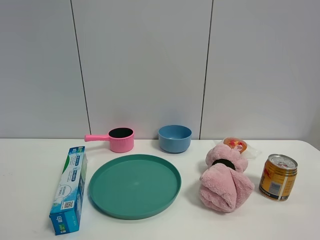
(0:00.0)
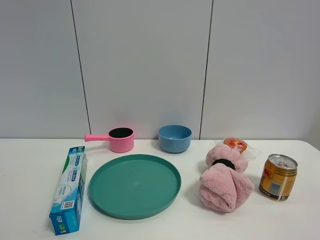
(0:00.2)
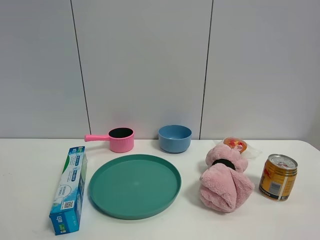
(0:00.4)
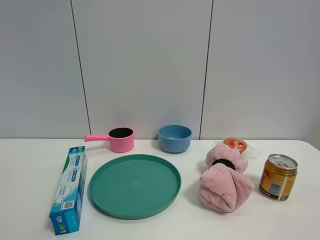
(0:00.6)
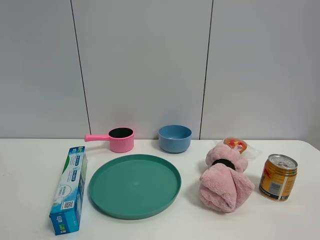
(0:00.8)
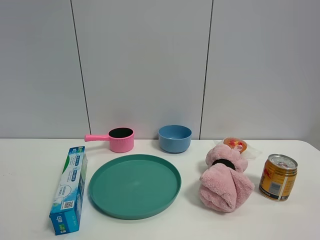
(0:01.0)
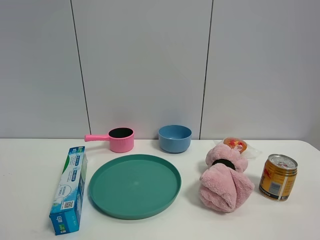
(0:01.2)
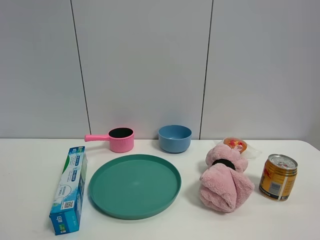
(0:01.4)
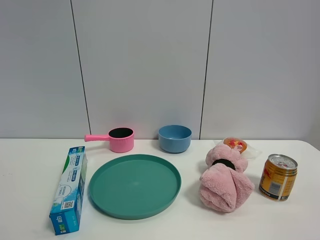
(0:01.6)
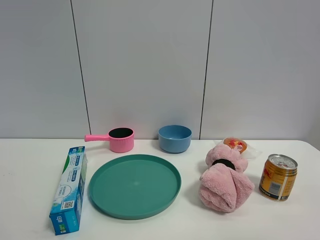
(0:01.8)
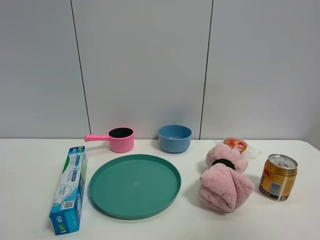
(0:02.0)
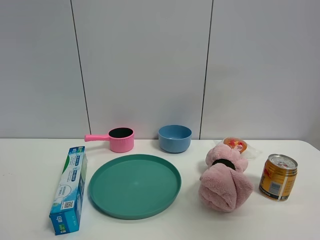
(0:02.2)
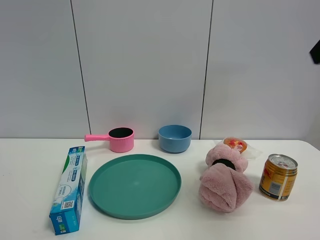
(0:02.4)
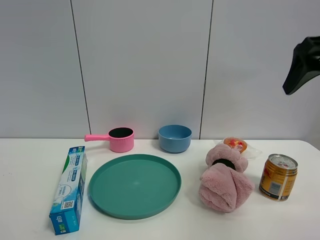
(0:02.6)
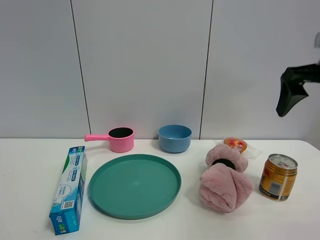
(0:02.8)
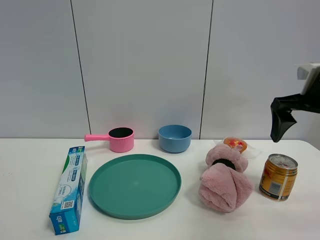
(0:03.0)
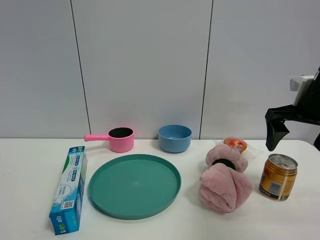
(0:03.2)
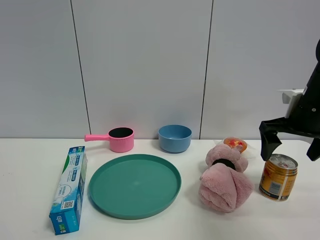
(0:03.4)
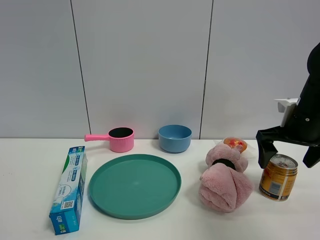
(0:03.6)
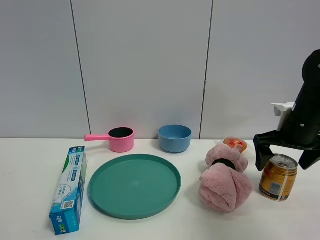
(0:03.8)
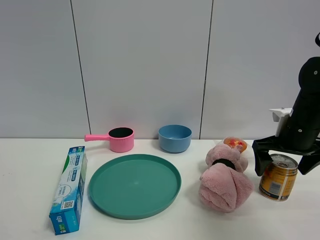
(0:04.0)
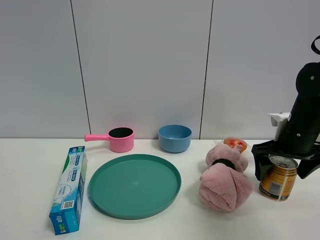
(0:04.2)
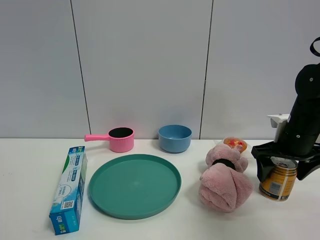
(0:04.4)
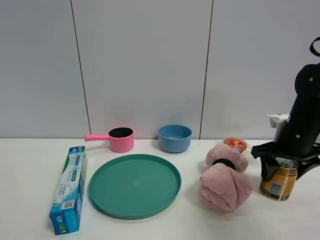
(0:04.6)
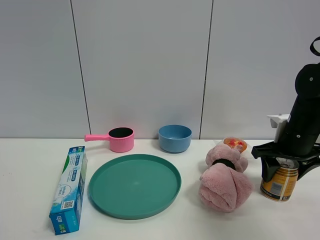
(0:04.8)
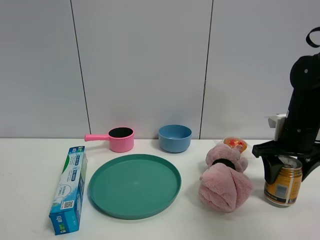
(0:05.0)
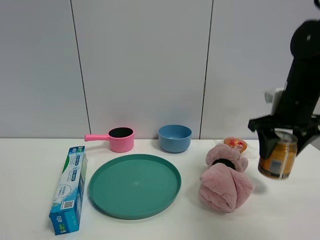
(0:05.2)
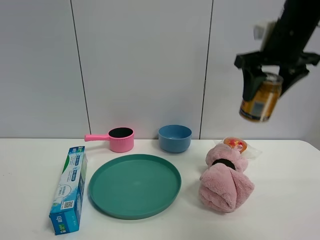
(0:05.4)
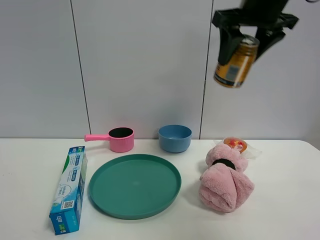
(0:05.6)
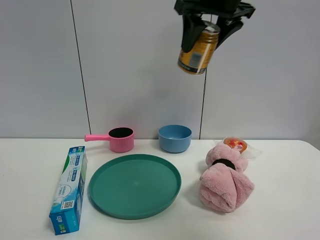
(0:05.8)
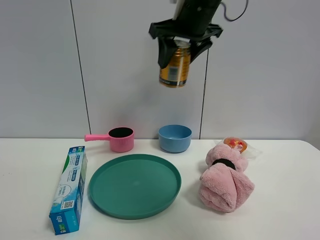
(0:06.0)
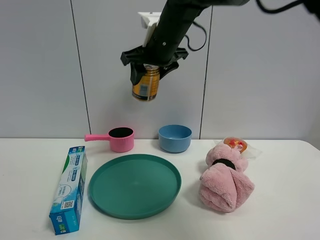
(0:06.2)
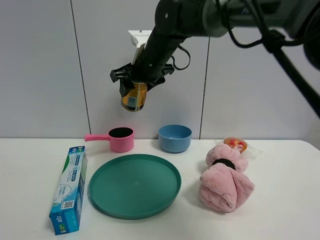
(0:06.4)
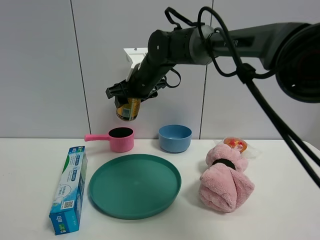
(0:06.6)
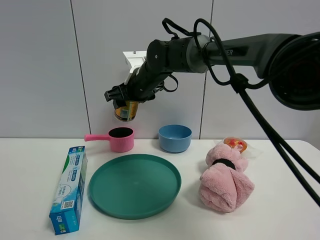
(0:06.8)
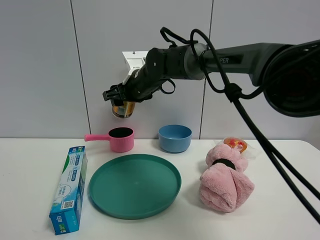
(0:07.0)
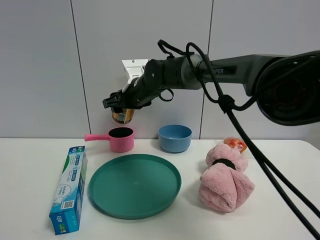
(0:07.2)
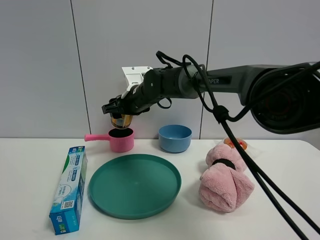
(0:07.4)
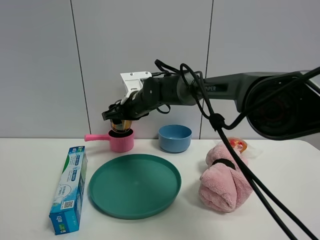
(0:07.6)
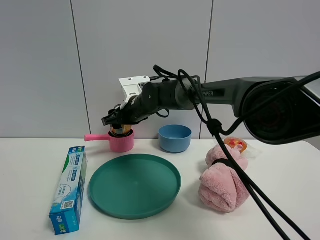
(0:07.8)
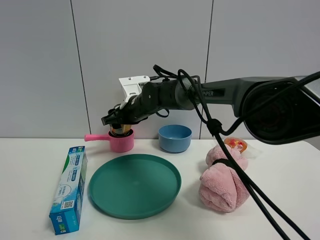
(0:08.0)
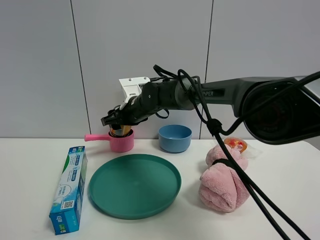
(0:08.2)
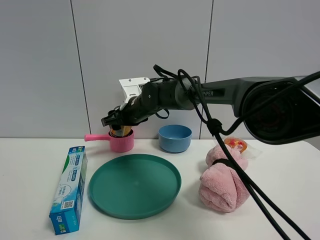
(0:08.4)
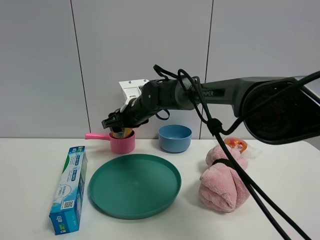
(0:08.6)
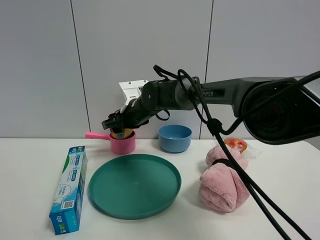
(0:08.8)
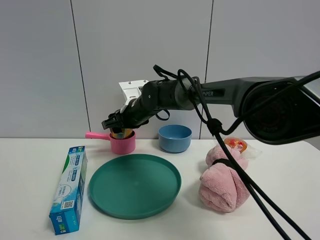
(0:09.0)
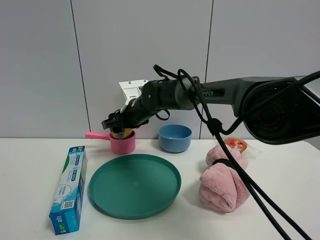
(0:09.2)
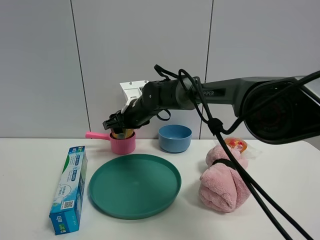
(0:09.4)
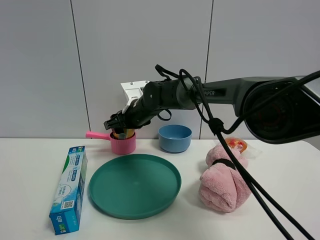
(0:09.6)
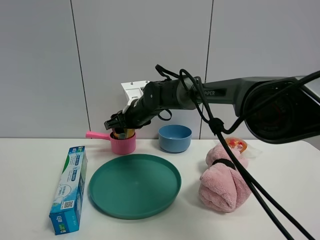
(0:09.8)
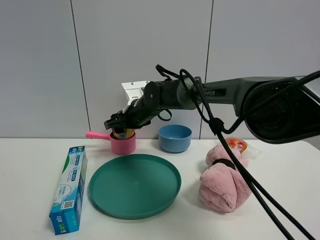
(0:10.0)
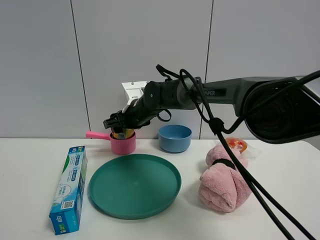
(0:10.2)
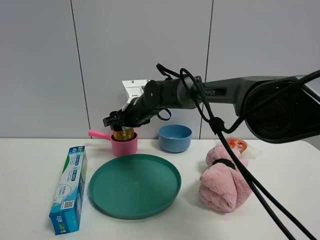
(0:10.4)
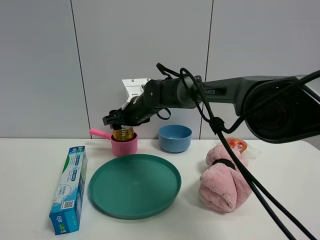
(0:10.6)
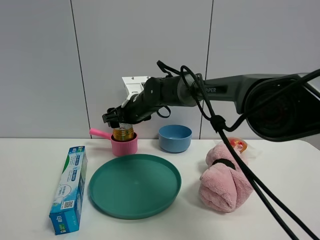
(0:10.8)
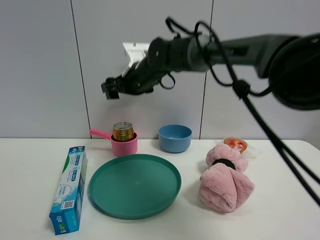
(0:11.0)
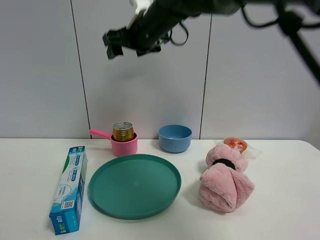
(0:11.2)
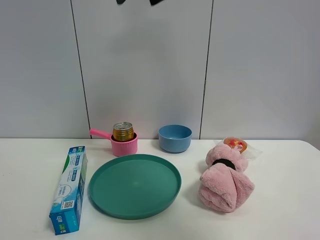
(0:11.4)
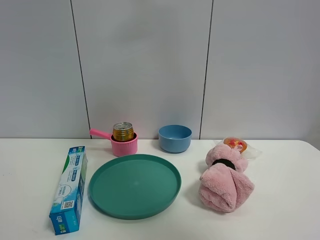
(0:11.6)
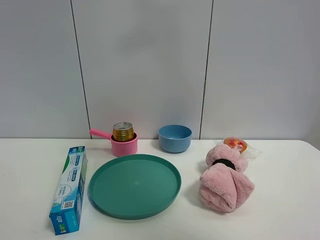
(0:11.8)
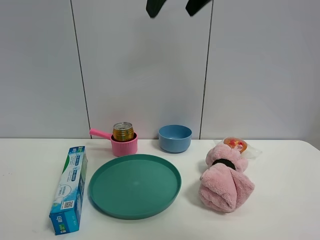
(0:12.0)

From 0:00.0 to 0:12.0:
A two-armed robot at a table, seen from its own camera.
Task of the whole recording: the gripper move the object.
Step, from 0:00.0 to 0:04.4: Grasp the red bull with the right gripper.
Step, from 0:04.6 to 0:10.4: Place the red bull into the pink pot with the right gripper.
From 0:01.6 to 0:03.0: The right gripper moves forward, roughly 35 cm.
From 0:03.0 to 0:04.4: The right gripper heads downward, covering approximately 10 cm, and closes its fingers.
From 0:04.4 to 0:06.0: The right gripper is displaced to the left and upward by some 30 cm, and closes its fingers.
From 0:06.0 to 0:07.6: The right gripper goes some 25 cm downward, to the left and forward.
From 0:07.6 to 0:09.0: The grippers stay close to where they were, moving slightly.
From 0:09.0 to 0:10.4: Neither gripper changes place.
From 0:10.4 to 0:12.0: The right gripper shifts about 35 cm upward and backward, and opens its fingers.

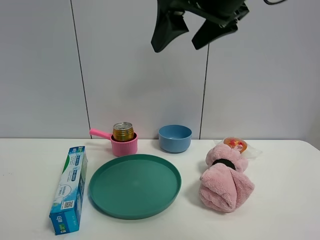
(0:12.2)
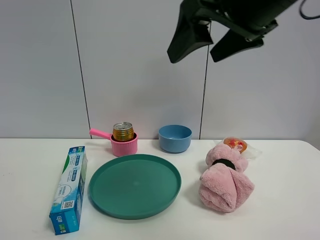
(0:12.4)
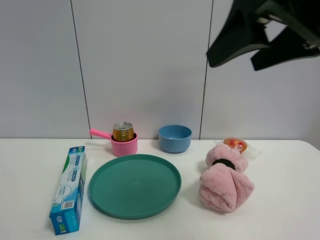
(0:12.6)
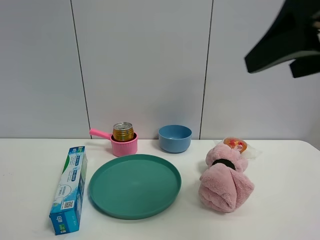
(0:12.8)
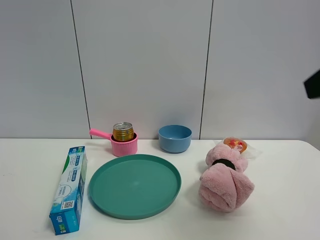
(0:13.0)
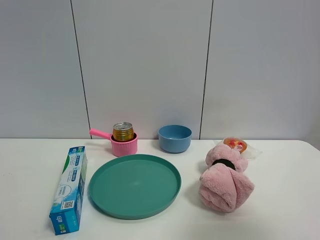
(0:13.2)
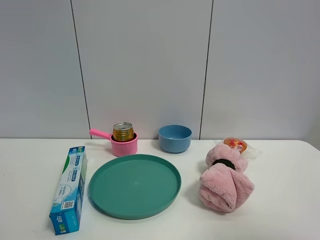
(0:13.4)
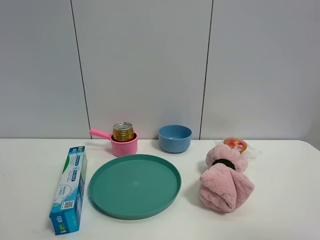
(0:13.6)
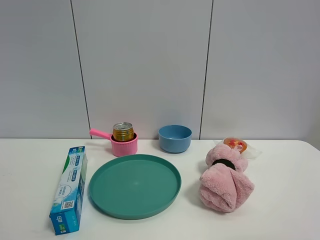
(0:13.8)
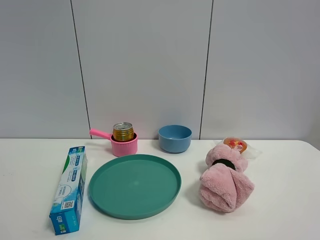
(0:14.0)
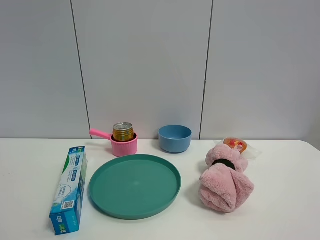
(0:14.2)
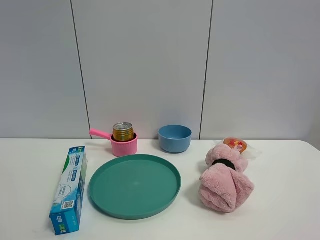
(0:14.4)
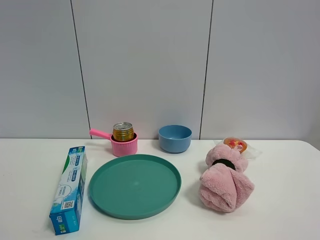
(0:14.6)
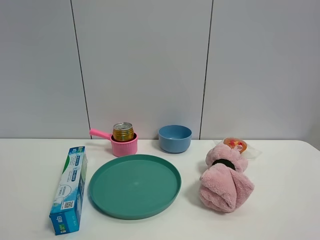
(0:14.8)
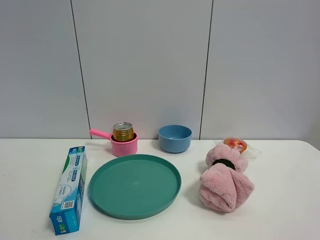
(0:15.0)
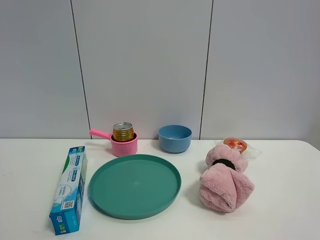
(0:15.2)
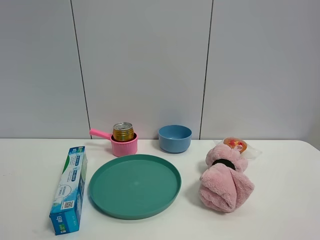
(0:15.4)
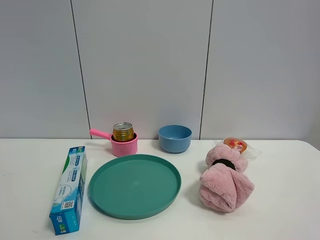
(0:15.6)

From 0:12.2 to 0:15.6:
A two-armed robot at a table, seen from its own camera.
Task of the whole recording: the gripper move the object.
From 0:12.2 to 0:13.8: The right gripper moves backward and to the right, approximately 30 cm.

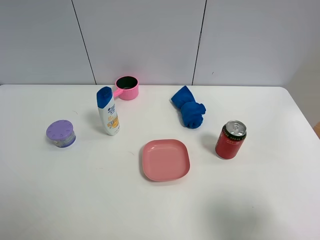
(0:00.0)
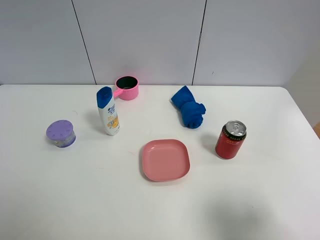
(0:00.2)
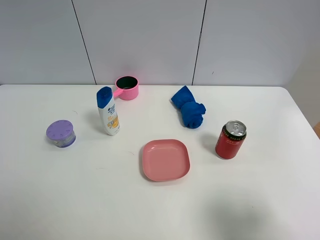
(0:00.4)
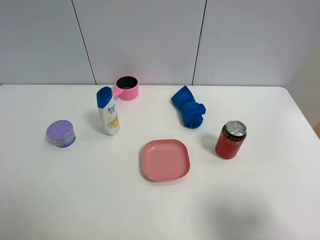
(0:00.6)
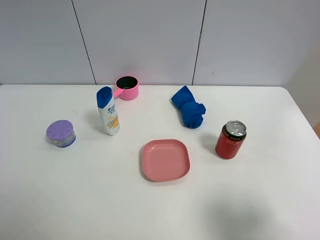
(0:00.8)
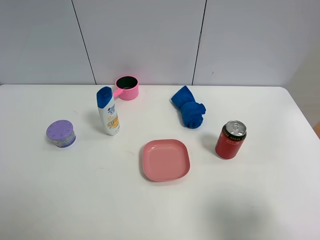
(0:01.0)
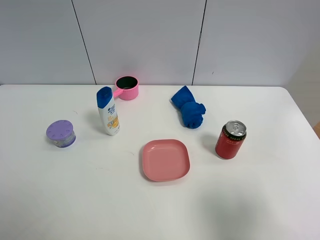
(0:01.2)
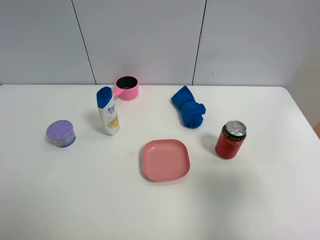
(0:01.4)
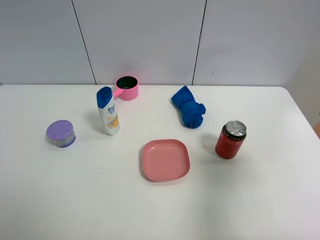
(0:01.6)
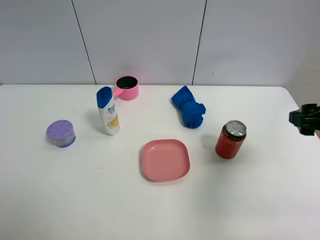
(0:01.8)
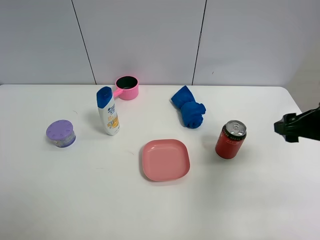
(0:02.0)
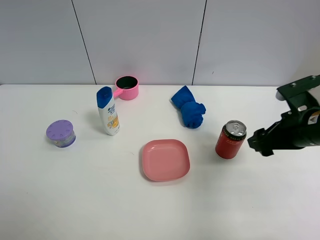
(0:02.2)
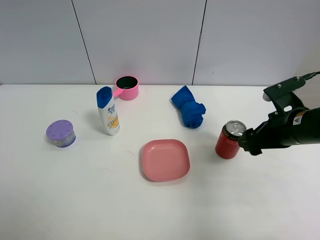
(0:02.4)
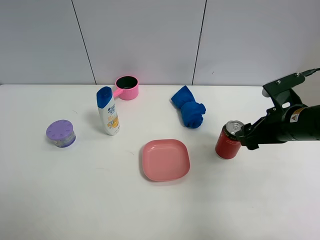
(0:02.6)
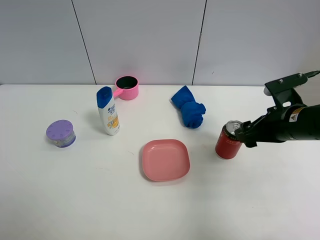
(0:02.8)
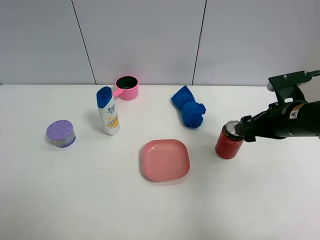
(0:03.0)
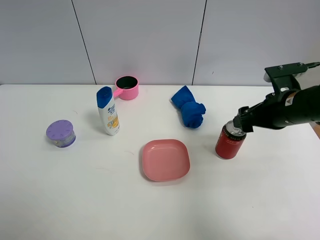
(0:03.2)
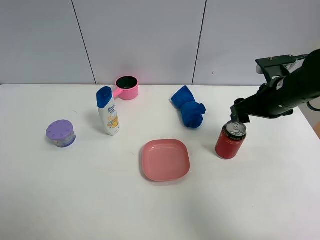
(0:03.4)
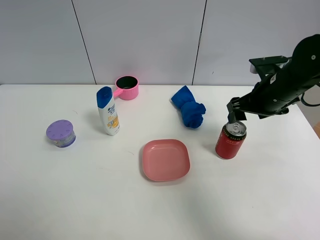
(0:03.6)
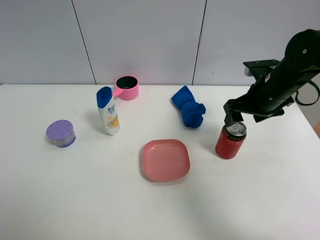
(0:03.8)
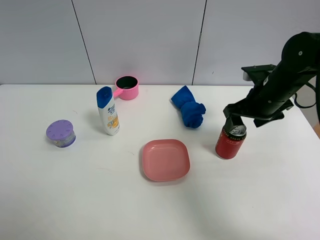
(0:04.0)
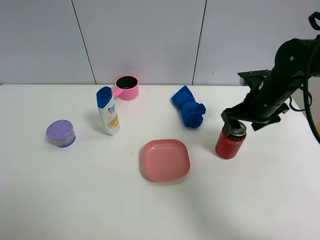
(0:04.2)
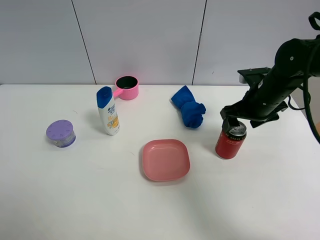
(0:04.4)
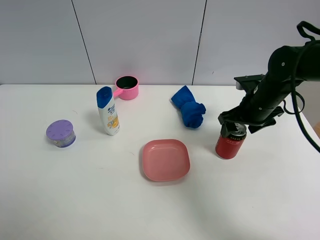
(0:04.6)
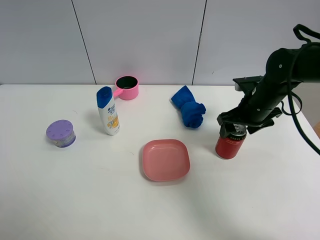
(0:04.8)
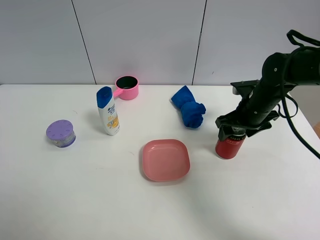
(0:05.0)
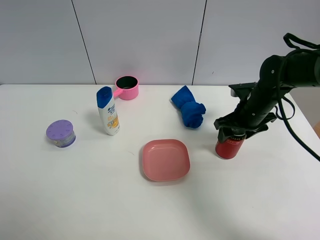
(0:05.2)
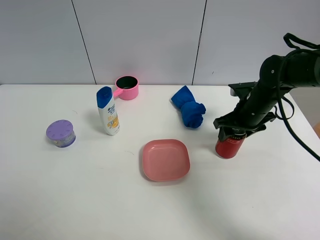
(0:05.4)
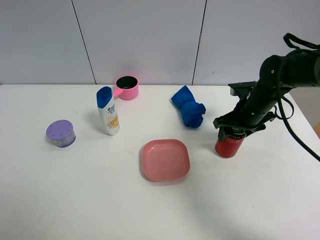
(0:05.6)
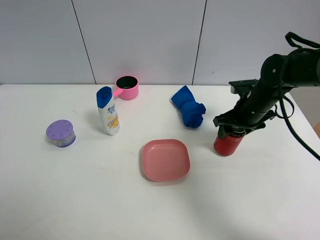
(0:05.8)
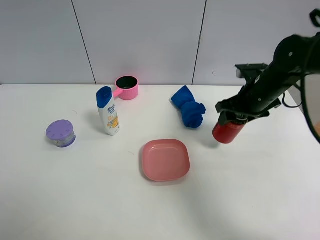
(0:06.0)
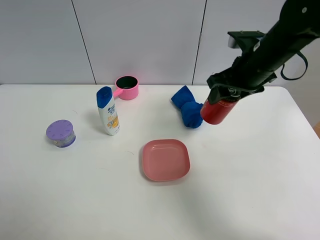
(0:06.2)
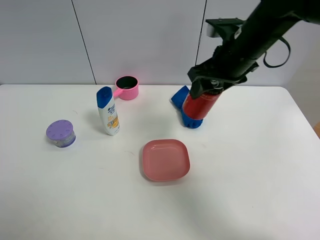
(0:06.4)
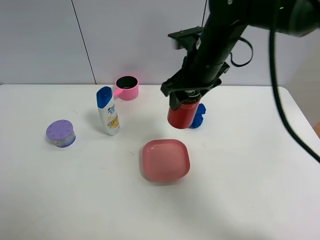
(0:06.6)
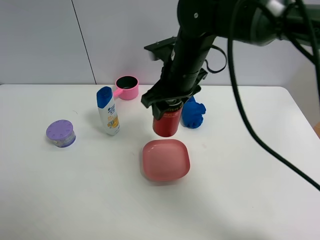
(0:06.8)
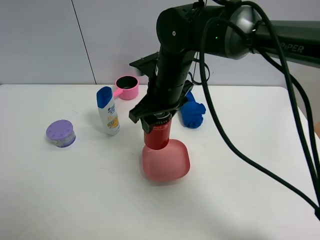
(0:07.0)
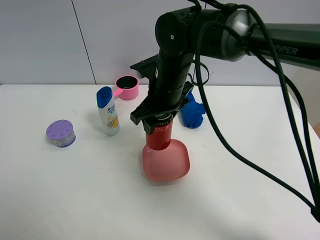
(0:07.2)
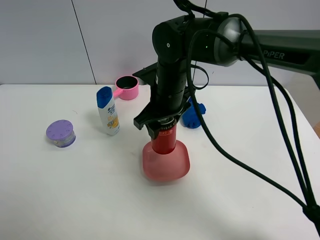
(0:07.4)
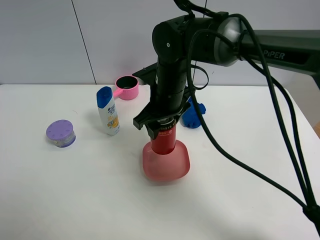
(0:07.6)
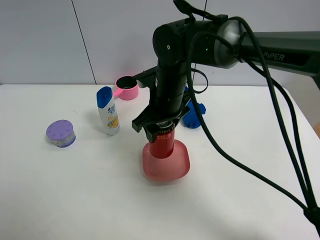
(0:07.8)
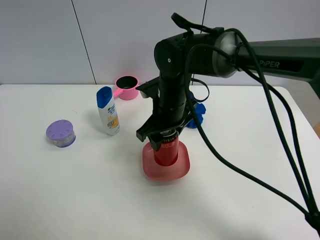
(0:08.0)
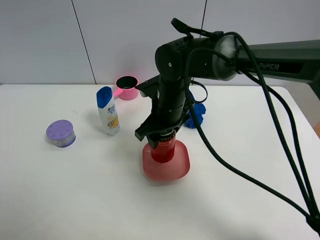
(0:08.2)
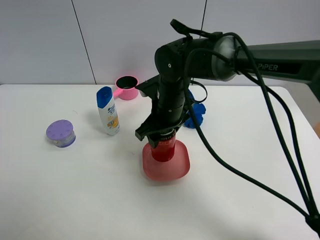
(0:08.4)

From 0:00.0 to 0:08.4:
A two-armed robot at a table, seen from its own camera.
Task of the whole recording: the gripper move the object.
Step, from 0:00.0 to 0:05.2: Grasp the Jia Duo Bao with the right gripper.
From 0:00.0 to 0:01.4: The right gripper moves forward, about 5 cm.
From 0:01.4 to 0:02.8: The right gripper goes approximately 20 cm forward and downward.
From 0:02.8 to 0:04.2: The right gripper heads forward, covering approximately 10 cm.
From 0:04.2 to 0:05.6: The right gripper closes its fingers.
From 0:05.6 to 0:07.0: The right gripper heads to the left and upward, covering roughly 20 cm.
From 0:07.0 to 0:08.4: The right gripper moves downward, about 5 cm.
